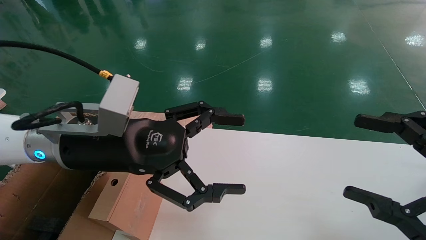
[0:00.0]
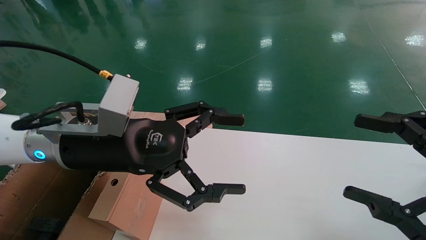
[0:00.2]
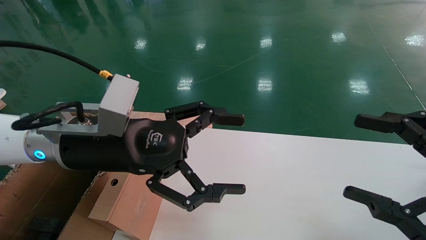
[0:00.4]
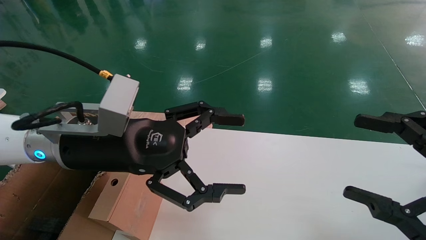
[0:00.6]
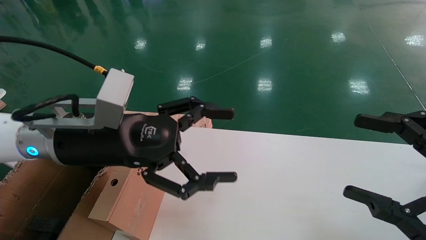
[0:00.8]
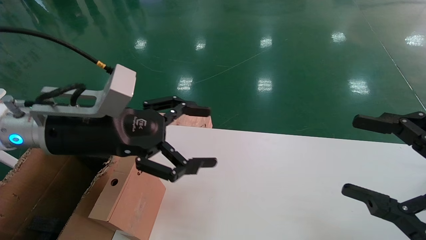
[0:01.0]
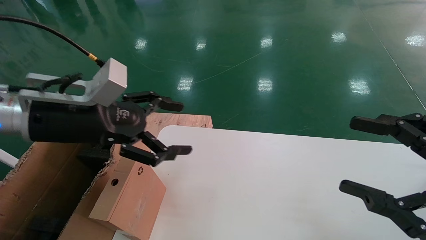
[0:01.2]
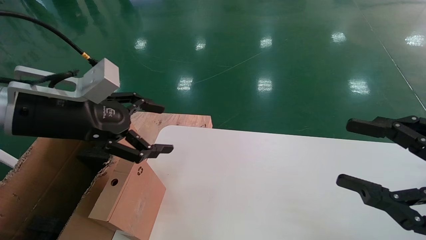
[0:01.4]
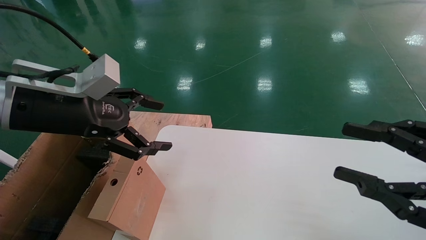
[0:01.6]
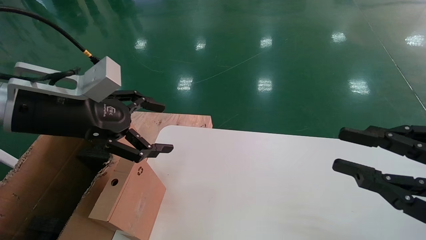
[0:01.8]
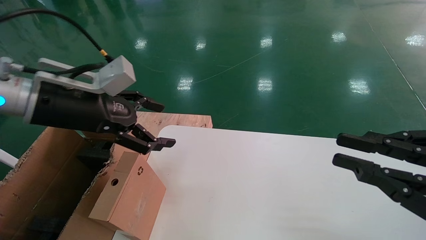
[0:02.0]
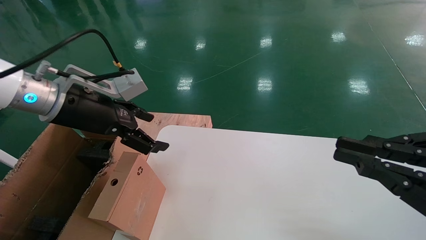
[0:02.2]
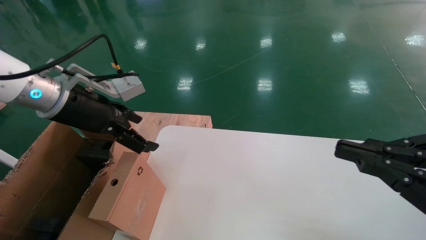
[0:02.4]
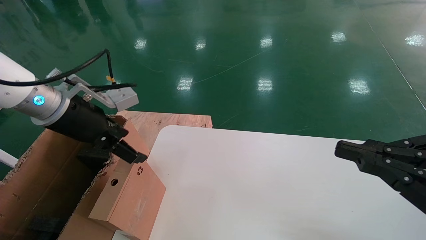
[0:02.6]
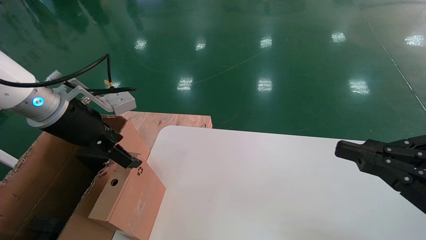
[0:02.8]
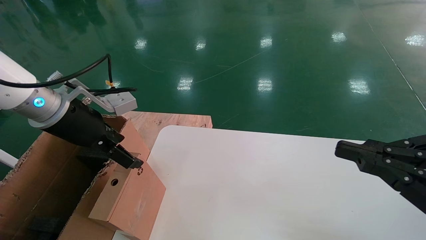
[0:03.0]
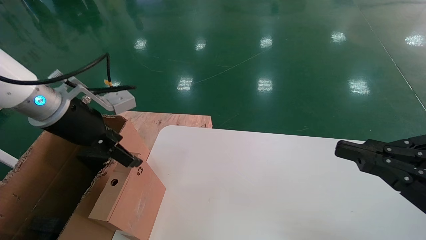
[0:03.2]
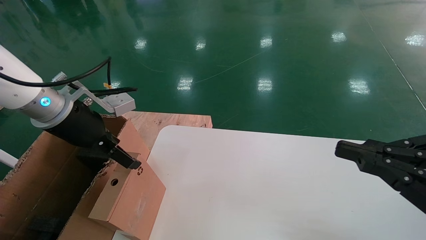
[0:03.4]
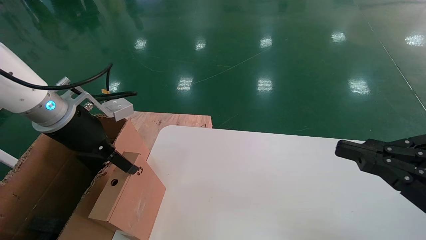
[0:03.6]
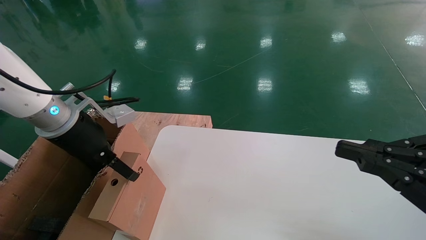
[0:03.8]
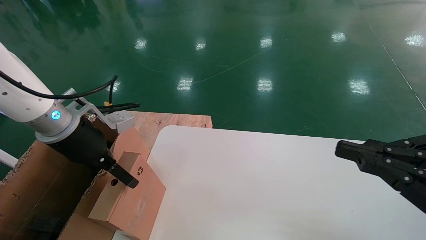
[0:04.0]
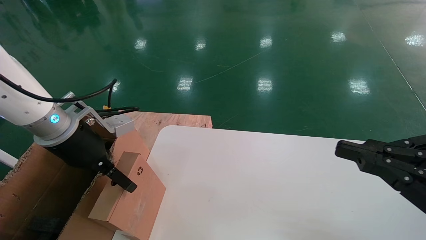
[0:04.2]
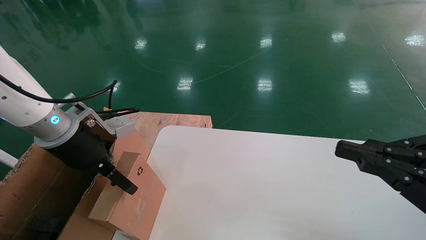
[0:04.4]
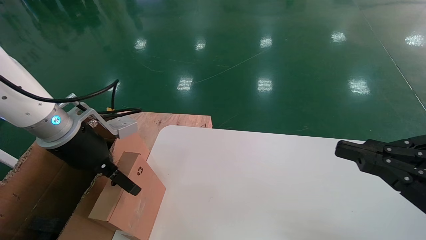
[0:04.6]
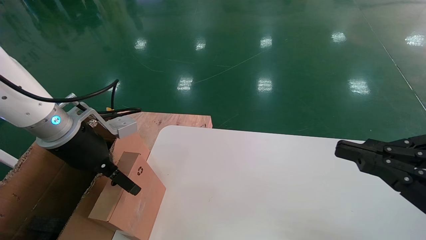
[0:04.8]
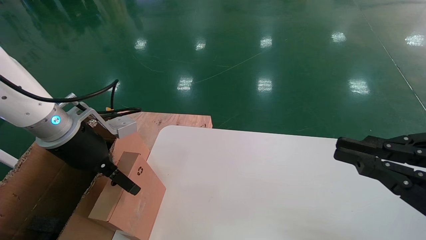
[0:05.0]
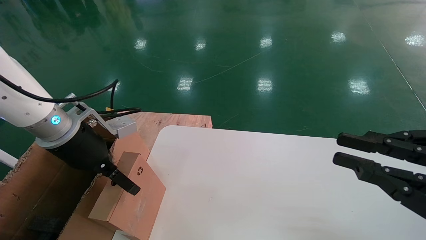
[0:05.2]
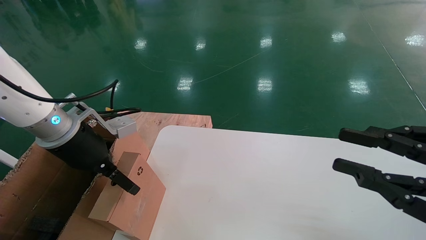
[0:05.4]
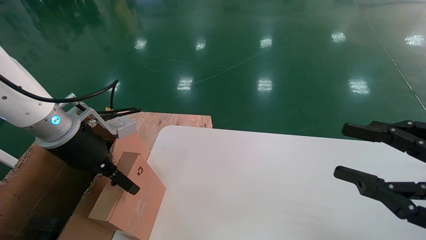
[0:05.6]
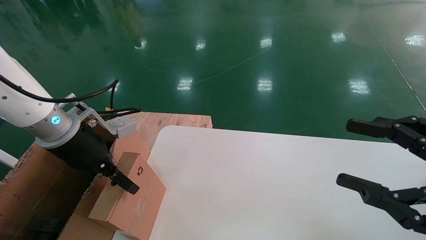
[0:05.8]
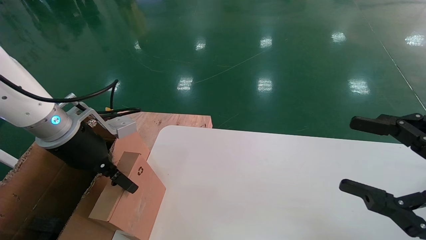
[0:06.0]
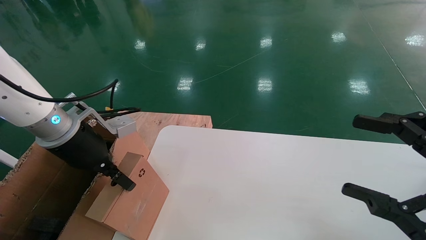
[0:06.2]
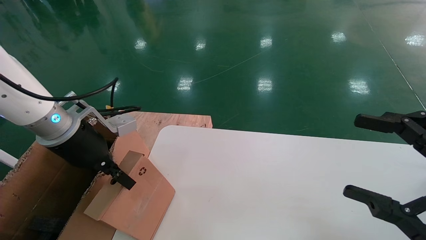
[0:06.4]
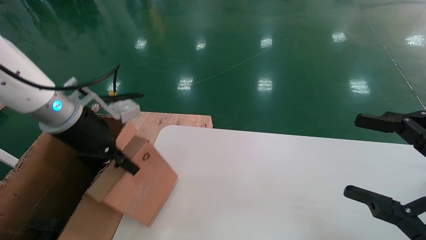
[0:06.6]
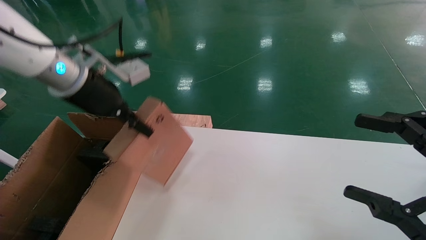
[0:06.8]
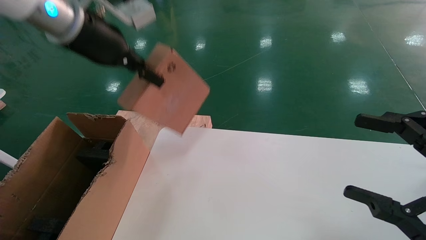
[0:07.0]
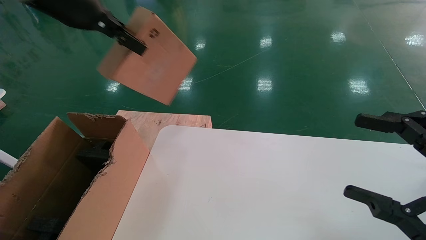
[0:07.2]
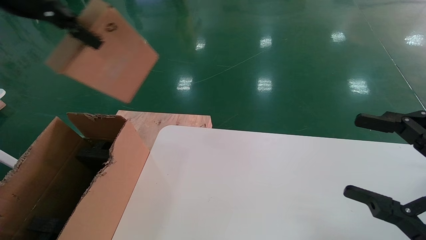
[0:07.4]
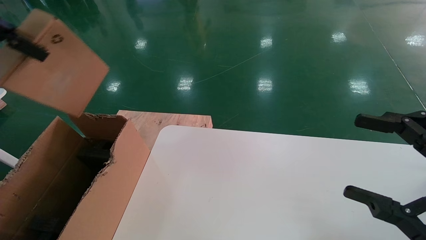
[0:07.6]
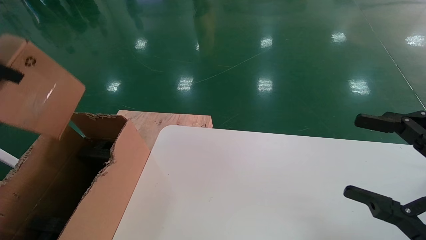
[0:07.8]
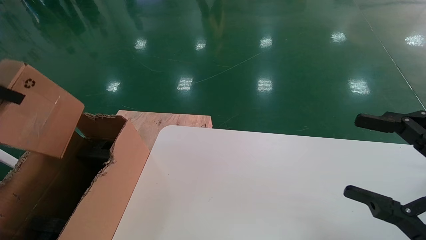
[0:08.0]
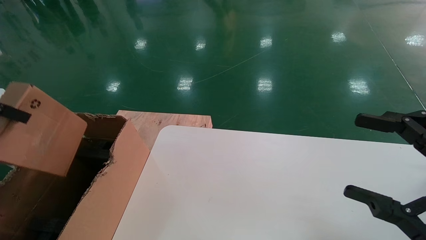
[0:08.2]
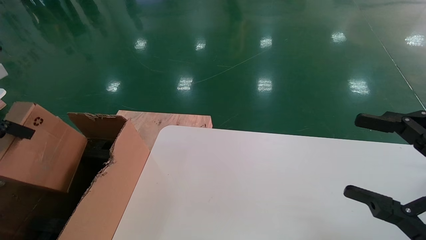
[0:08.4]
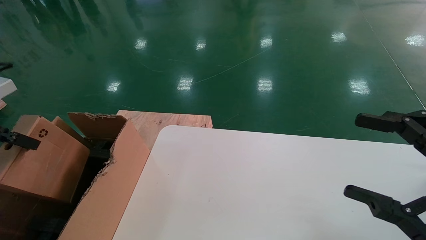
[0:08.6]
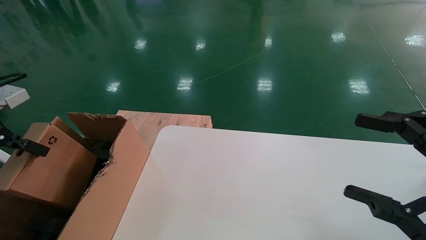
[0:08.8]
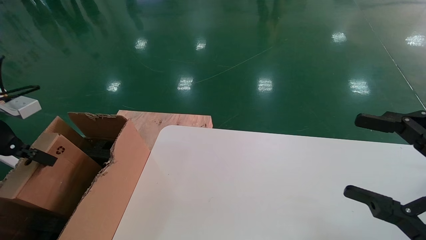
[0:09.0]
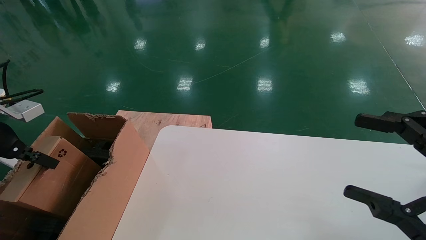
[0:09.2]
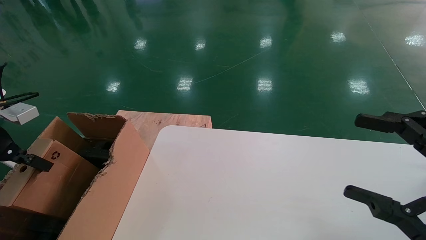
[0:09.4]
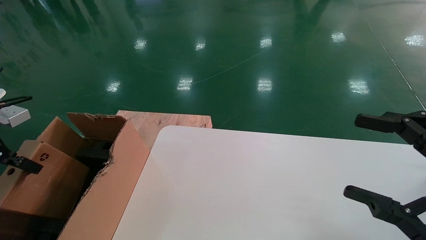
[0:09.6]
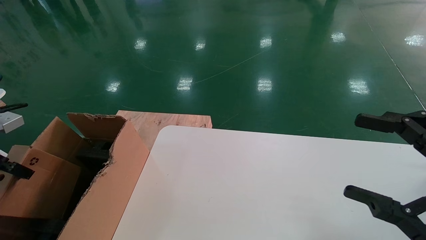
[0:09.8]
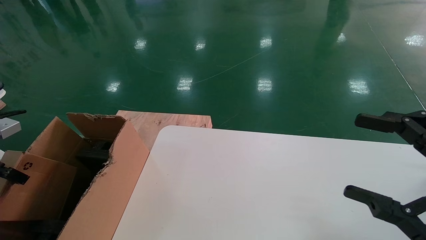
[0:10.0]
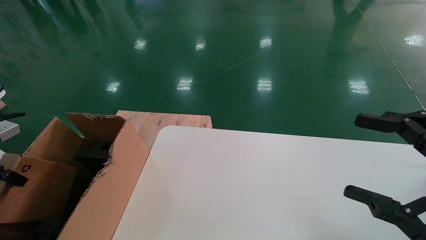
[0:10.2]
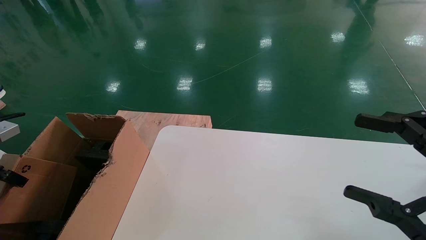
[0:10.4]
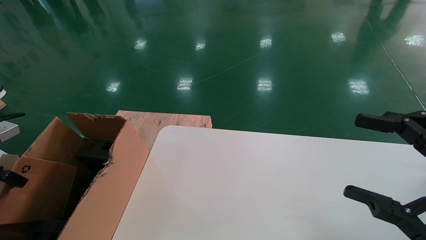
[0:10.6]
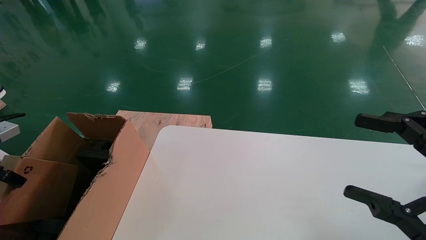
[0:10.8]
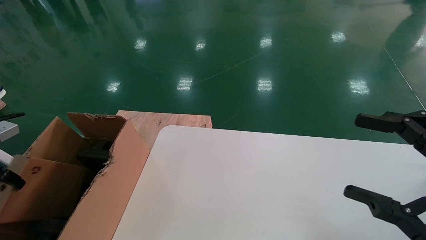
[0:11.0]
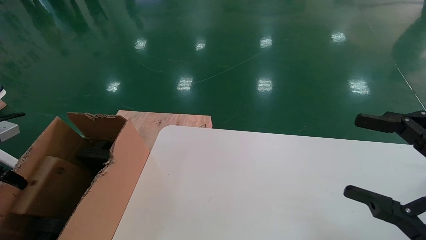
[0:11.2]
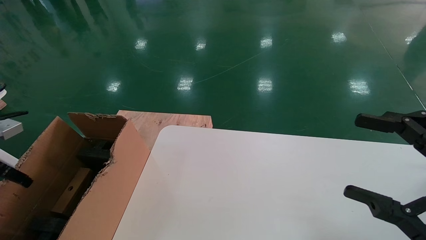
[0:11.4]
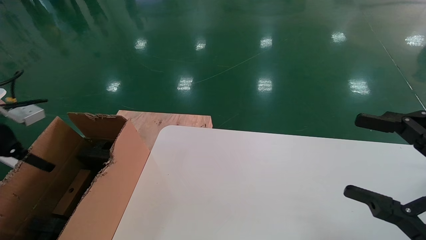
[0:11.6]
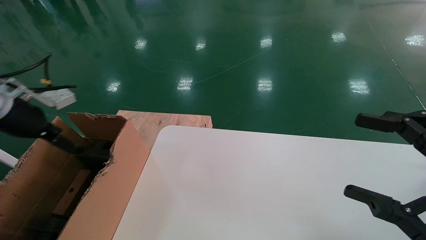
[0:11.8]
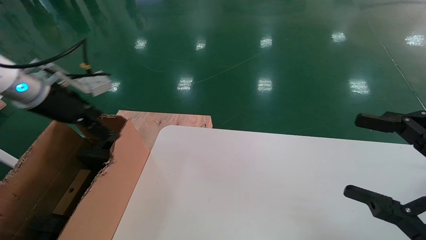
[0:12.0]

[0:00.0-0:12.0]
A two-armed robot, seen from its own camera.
Task of the whole recording: place the small box on the table into the large box on the left.
Step, 0:01.2 to 0:06.4: Pick up the mouse and the power cord paper box.
Step, 0:06.6 to 0:11.4: Place the mouse and the power cord paper box into the container.
0:00.0 to 0:01.6: The left gripper goes roughly 10 cm to the left. The right gripper closes.
0:01.6 to 0:03.0: The left gripper travels forward by about 5 cm. Meanwhile the right gripper closes its fingers.
0:03.0 to 0:04.4: The grippers stay close to where they were, moving slightly.
0:04.4 to 0:06.0: The right gripper opens up.
0:06.0 to 0:07.6: The left gripper shifts approximately 25 cm upward and to the left, and closes.
0:07.6 to 0:09.0: The left gripper travels downward and to the left by roughly 20 cm.
0:09.0 to 0:10.4: The left gripper moves to the left and downward, some 10 cm.
0:10.4 to 0:12.0: The left gripper shifts roughly 20 cm to the right, forward and upward, and opens up.

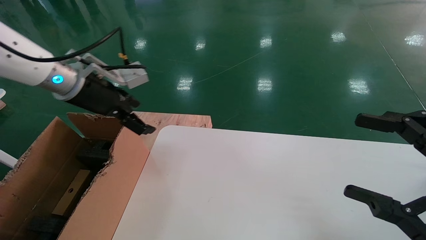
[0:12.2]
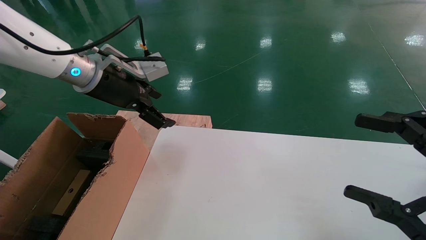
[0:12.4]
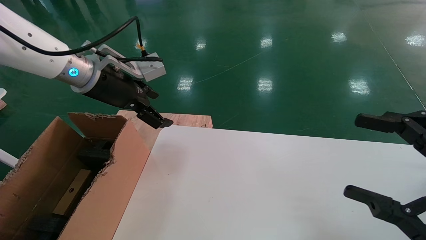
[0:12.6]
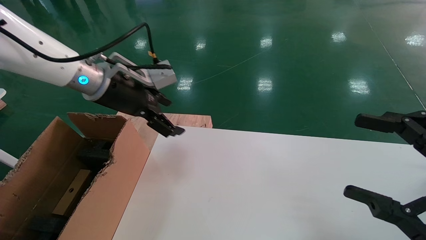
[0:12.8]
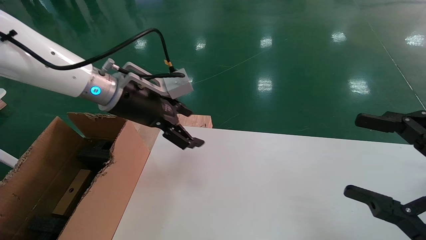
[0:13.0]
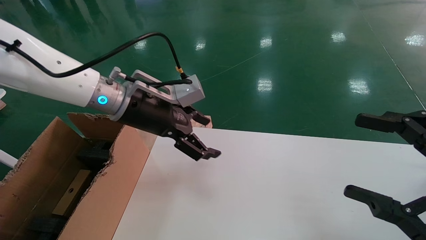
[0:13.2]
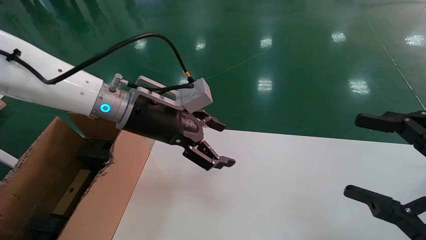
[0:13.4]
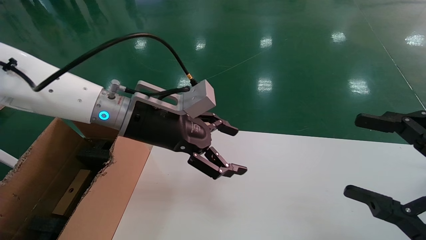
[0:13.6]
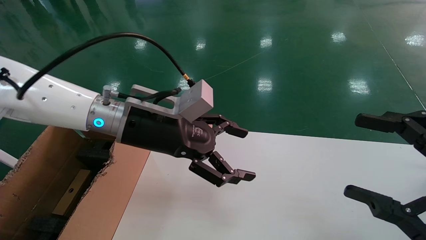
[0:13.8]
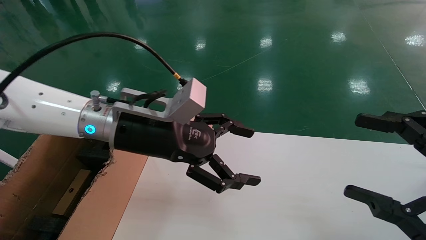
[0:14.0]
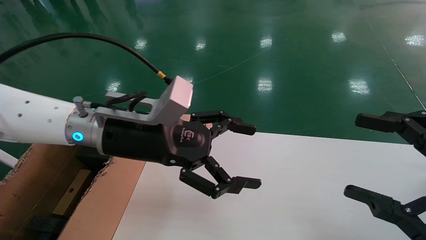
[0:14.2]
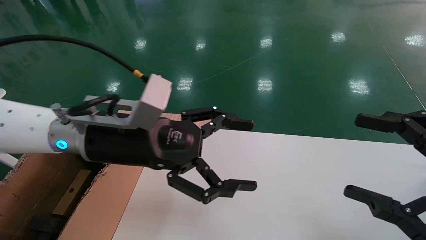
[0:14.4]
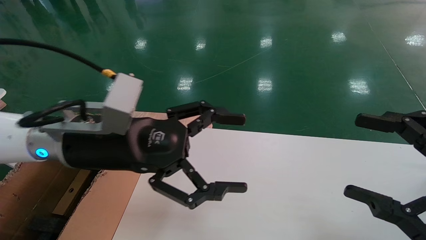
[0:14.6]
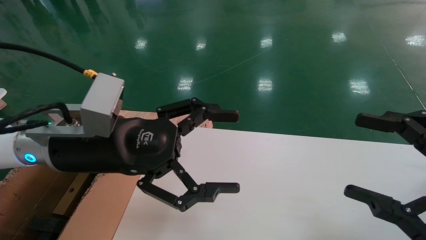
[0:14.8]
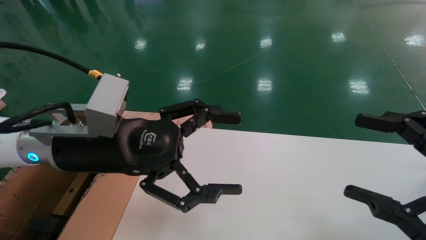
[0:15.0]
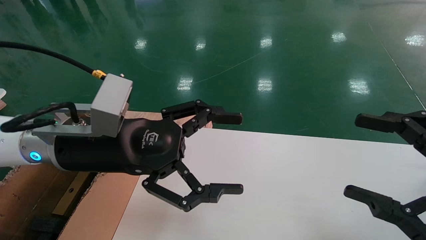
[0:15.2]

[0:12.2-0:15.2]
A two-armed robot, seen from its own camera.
Task of the whole recording: place the small box on the table into the large box on the left.
0:12.2 to 0:13.8: The left gripper is displaced to the right by approximately 15 cm.
0:13.8 to 0:15.2: The left gripper shifts roughly 5 cm backward.
